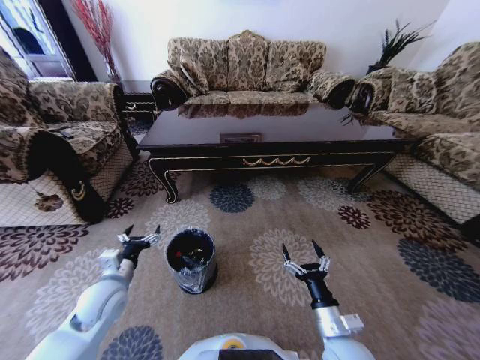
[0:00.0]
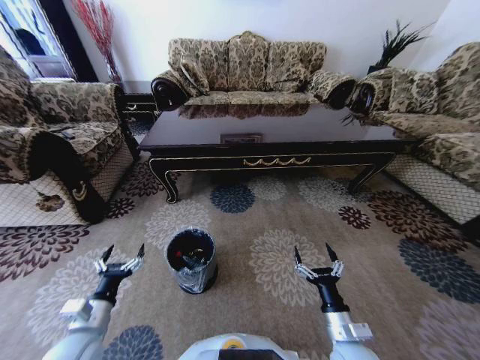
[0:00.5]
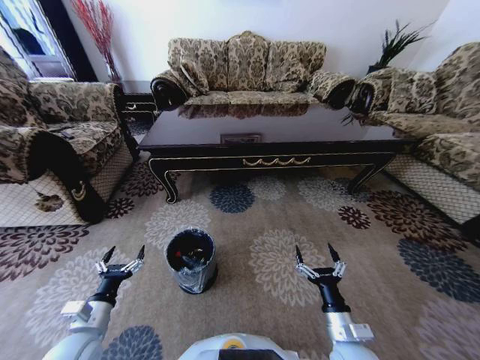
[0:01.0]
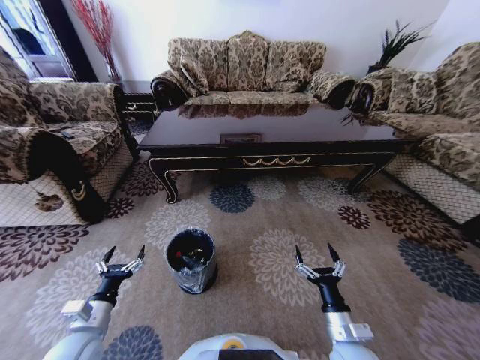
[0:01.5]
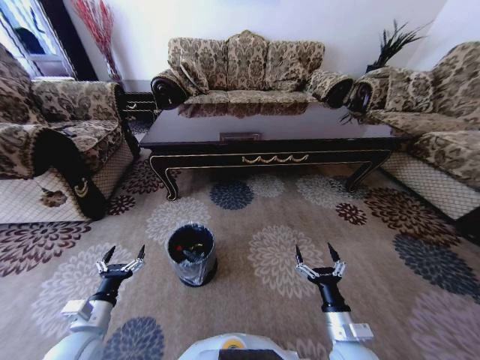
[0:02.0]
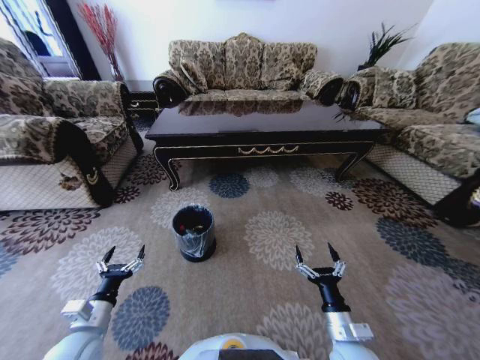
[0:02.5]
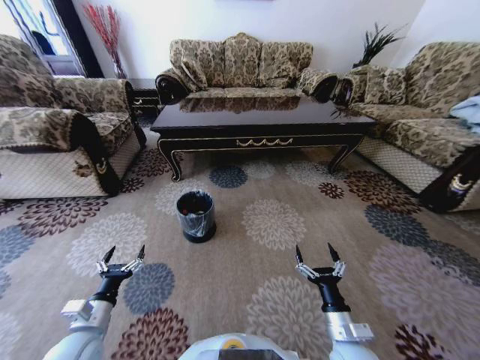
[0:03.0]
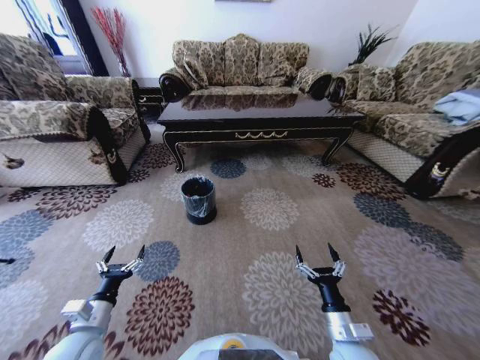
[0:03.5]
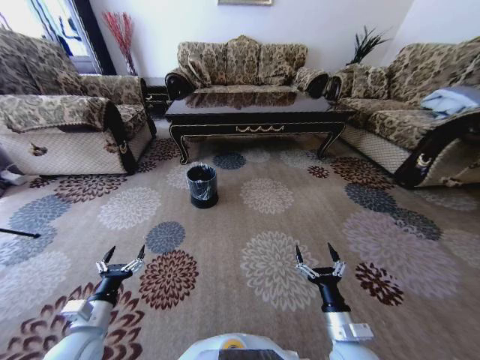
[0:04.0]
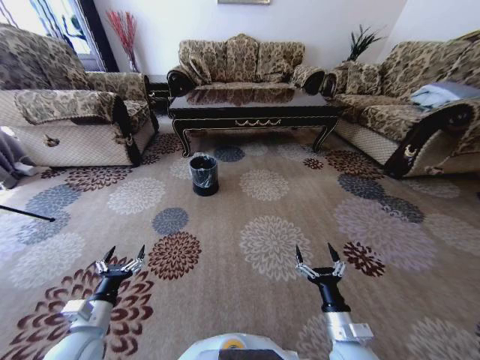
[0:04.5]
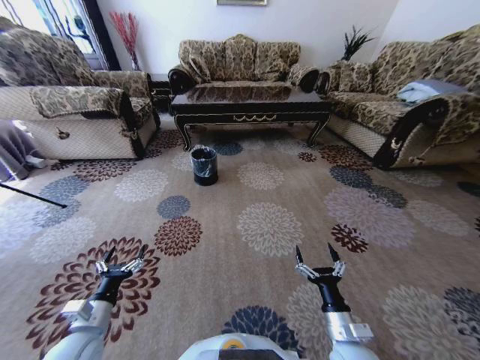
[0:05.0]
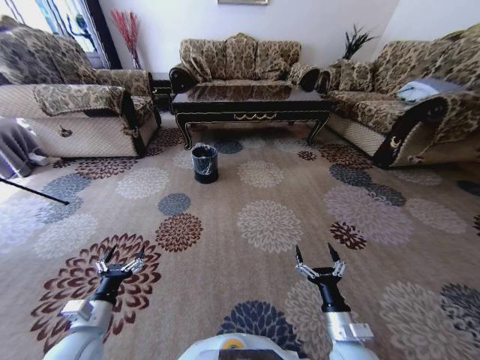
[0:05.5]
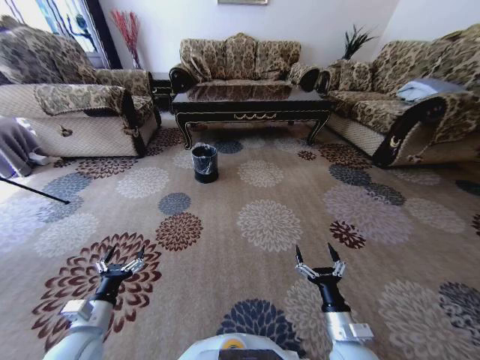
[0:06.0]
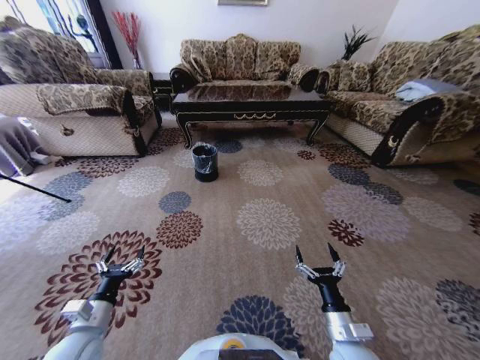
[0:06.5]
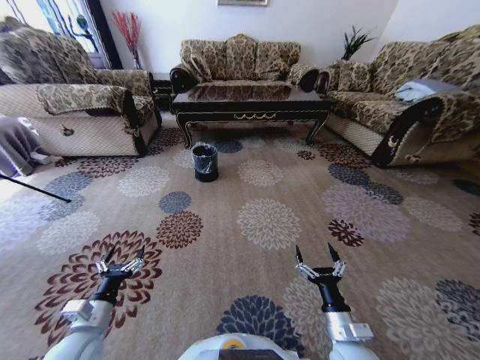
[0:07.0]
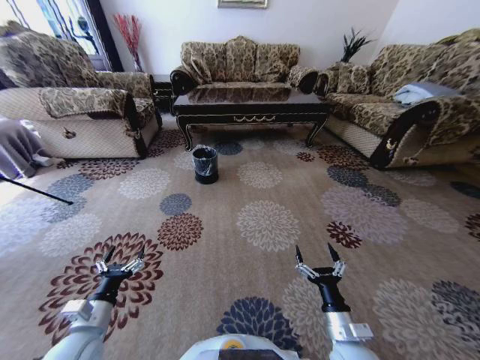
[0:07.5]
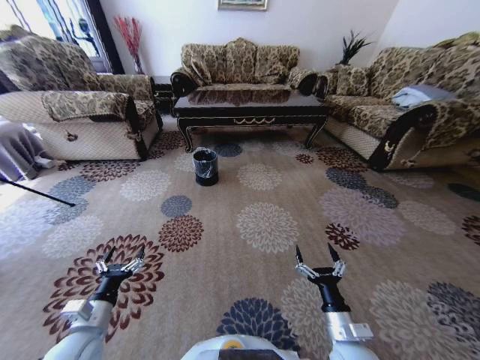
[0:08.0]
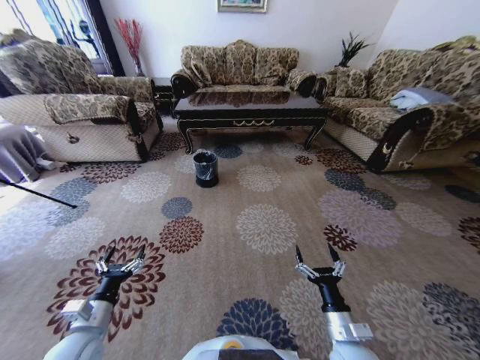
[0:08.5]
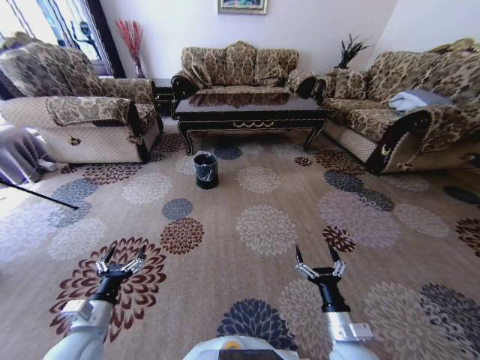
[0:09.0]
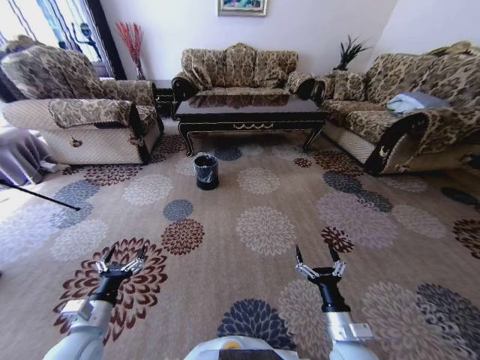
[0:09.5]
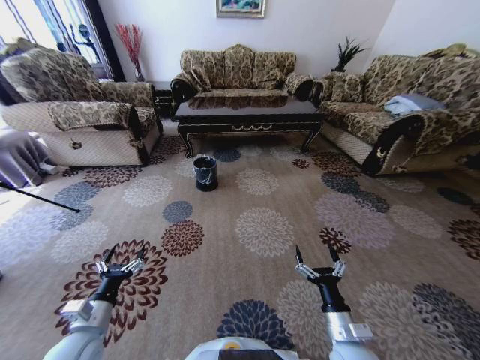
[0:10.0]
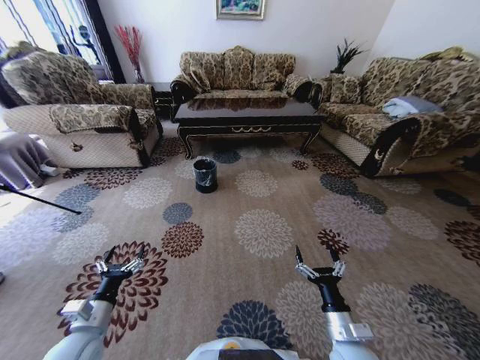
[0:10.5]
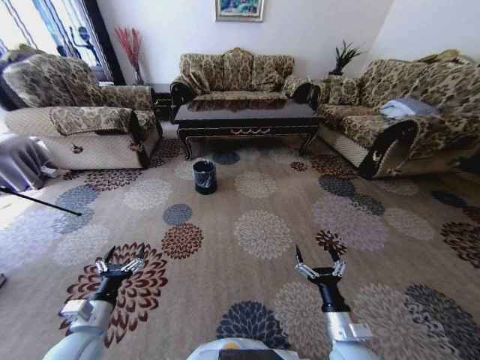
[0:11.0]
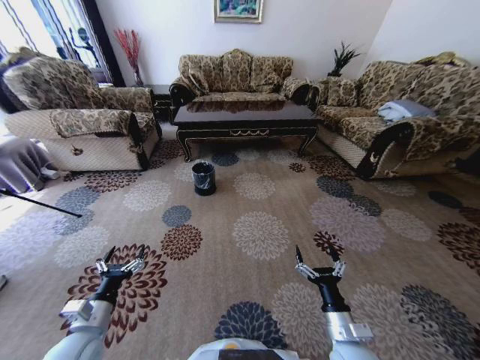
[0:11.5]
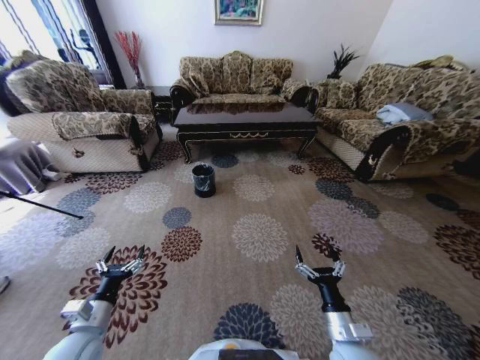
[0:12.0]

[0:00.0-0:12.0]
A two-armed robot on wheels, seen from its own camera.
Task of the whole recording: Move to the front of the table and pick up the trash from the floor, then place it into the trash bin.
0:00.0 to 0:02.0: The left gripper moves backward, about 10 cm.

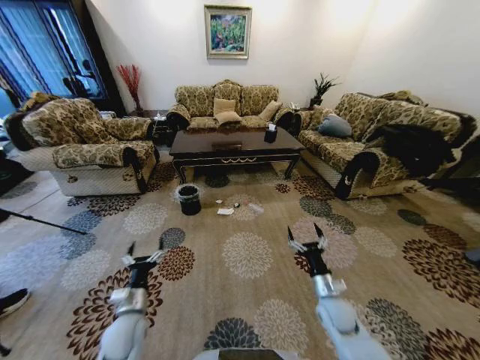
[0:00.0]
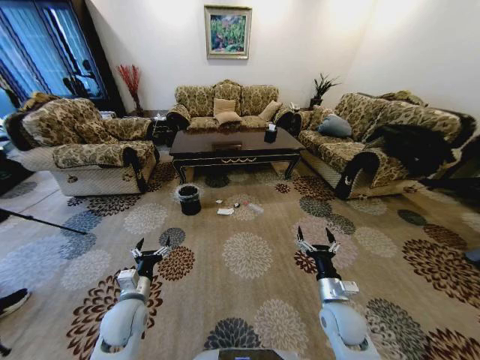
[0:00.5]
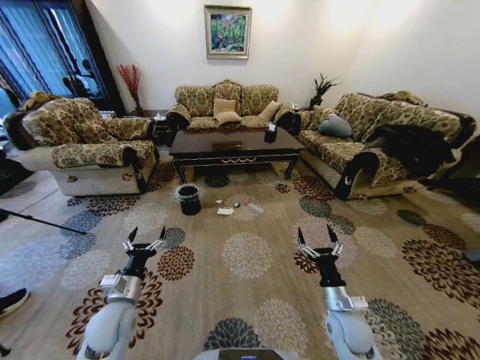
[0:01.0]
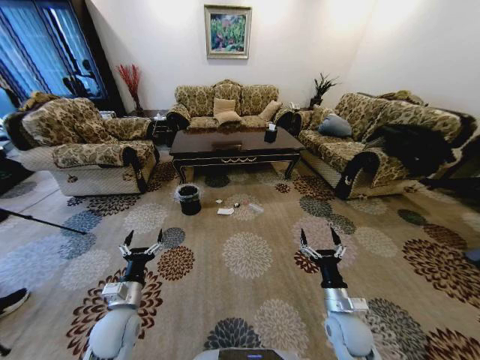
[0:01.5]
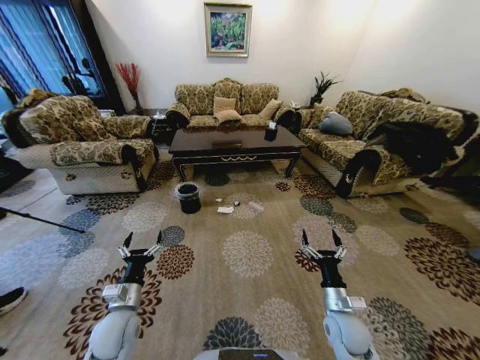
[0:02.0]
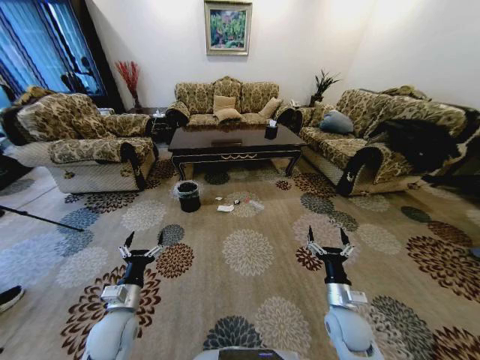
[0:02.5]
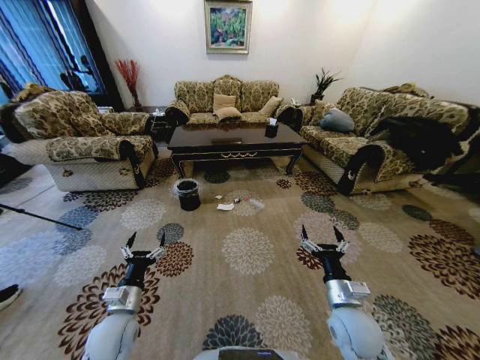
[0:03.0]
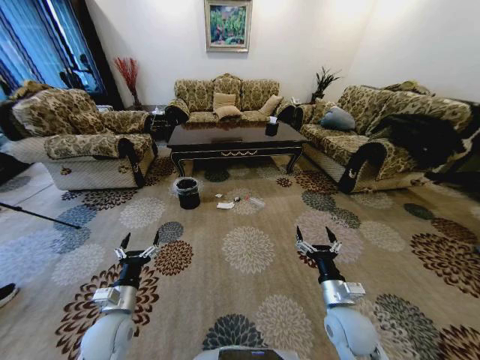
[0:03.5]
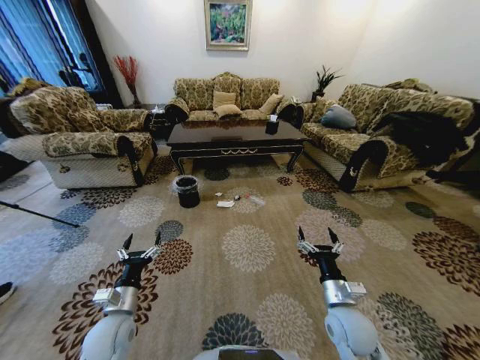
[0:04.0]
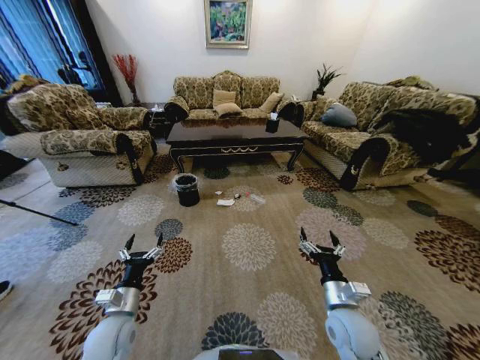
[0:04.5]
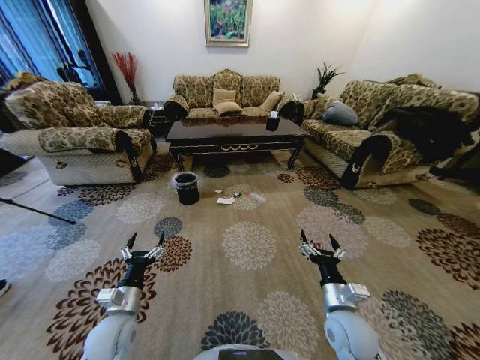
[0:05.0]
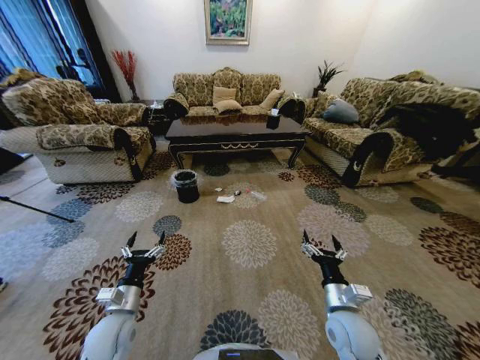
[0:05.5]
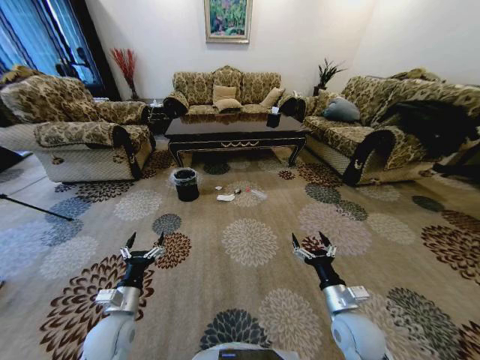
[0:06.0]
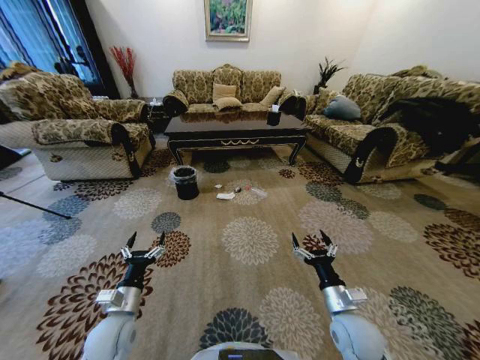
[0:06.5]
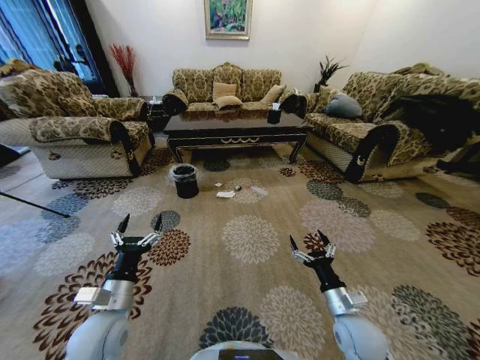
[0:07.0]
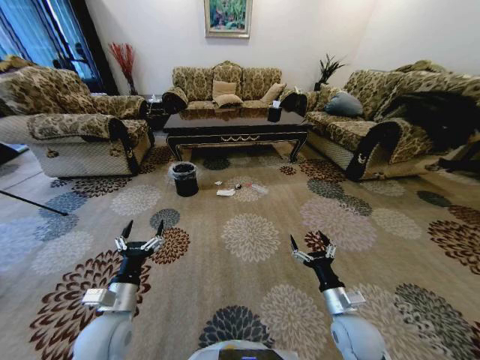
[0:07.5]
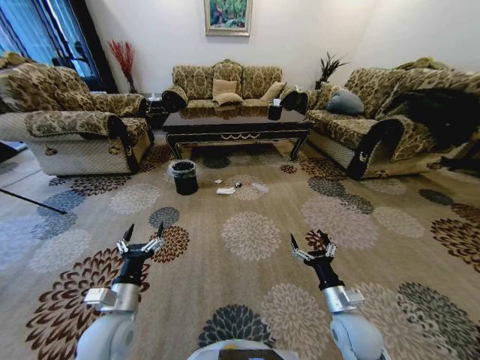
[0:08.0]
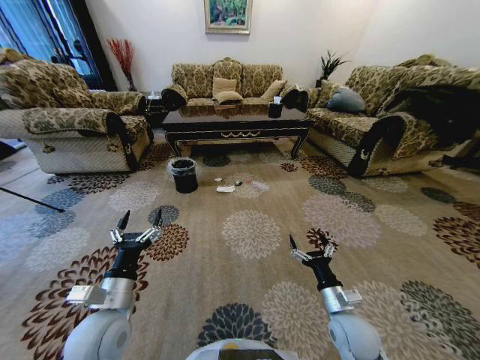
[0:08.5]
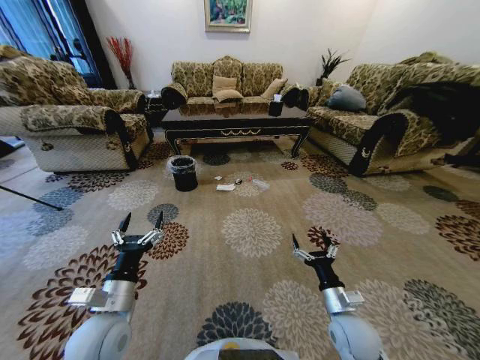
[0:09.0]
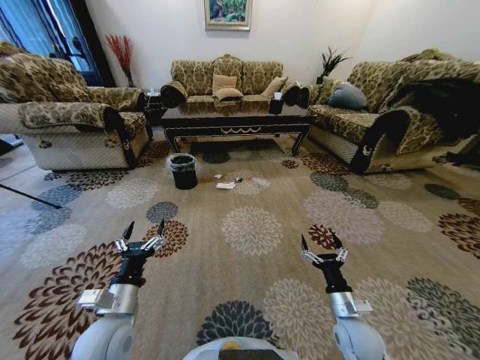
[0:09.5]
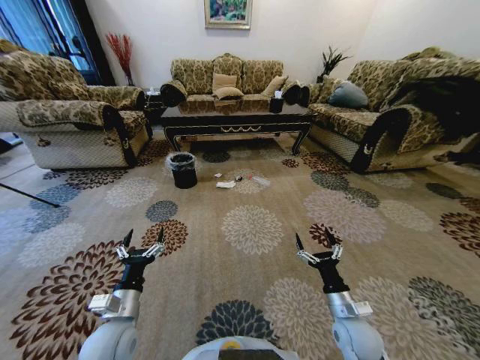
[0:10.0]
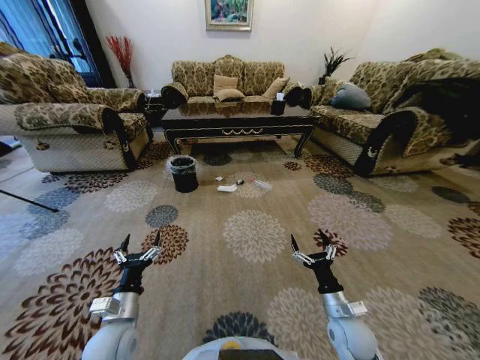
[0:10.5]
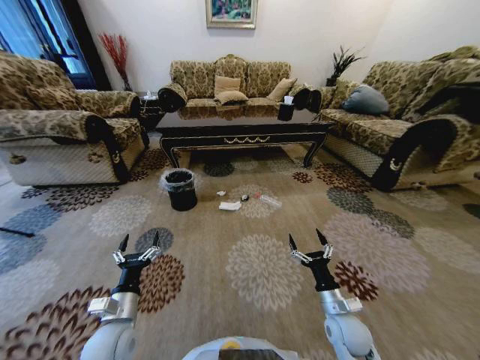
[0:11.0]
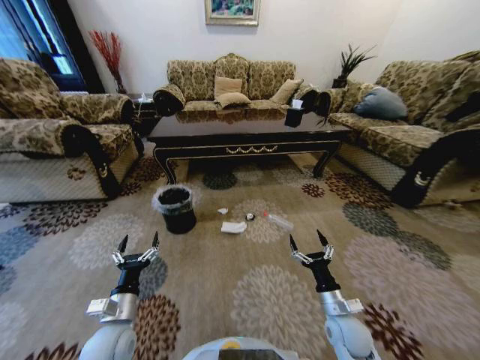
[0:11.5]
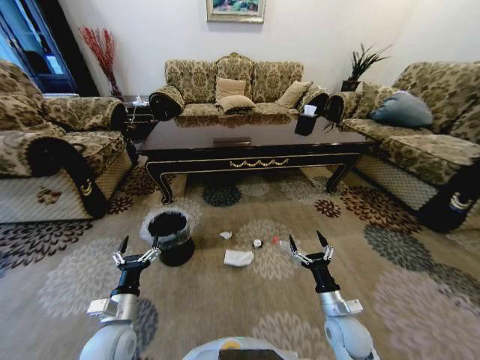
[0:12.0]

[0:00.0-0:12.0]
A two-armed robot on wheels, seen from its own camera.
Task of the whole recording: Move to the front of the table and pick up the trash from the floor, then place it into the trash bin.
0:02.0 to 0:04.0: The right gripper heads upward, covering roughly 5 cm.

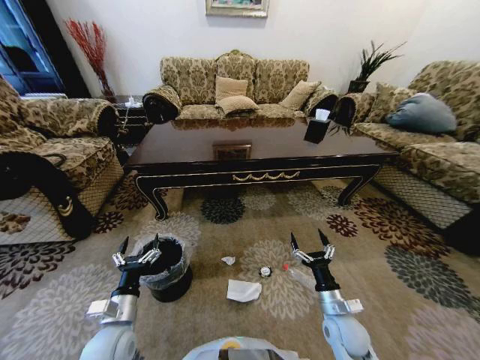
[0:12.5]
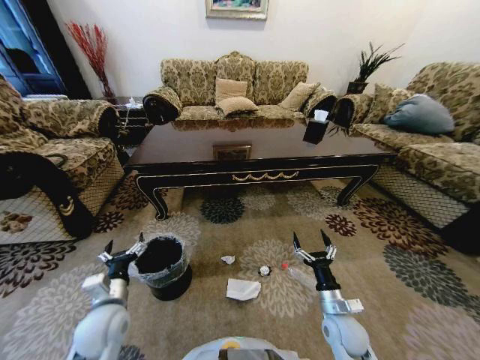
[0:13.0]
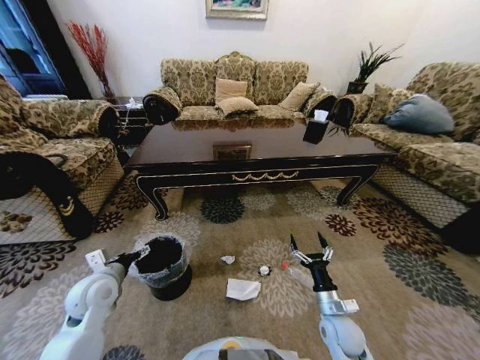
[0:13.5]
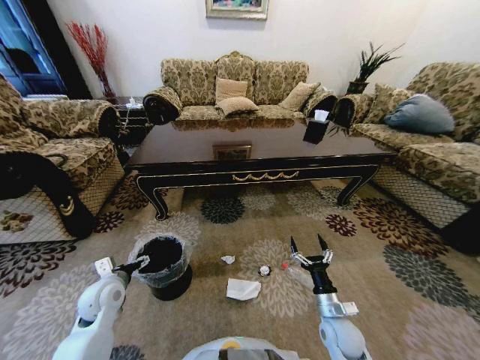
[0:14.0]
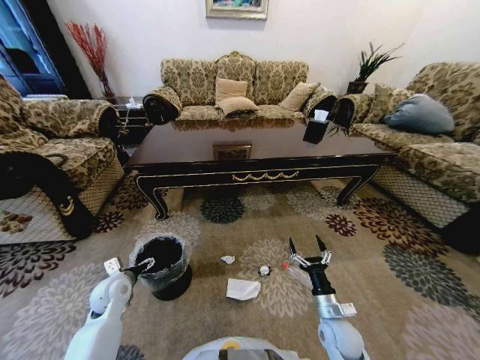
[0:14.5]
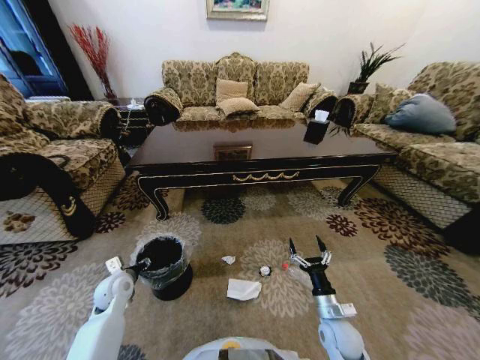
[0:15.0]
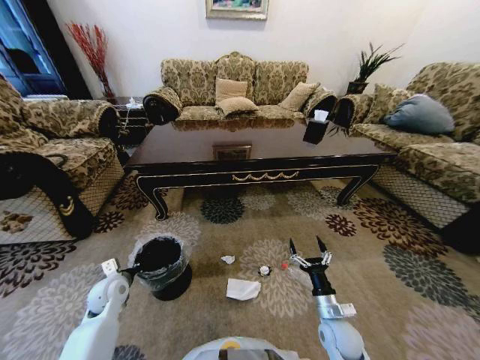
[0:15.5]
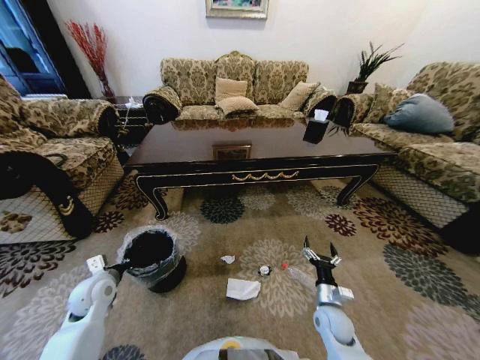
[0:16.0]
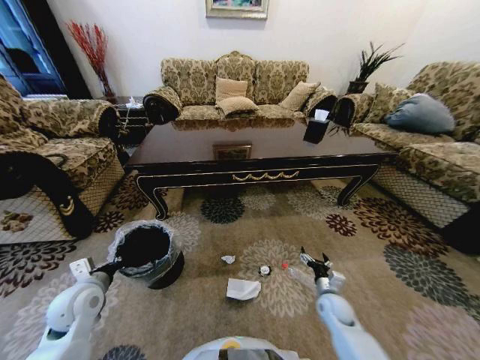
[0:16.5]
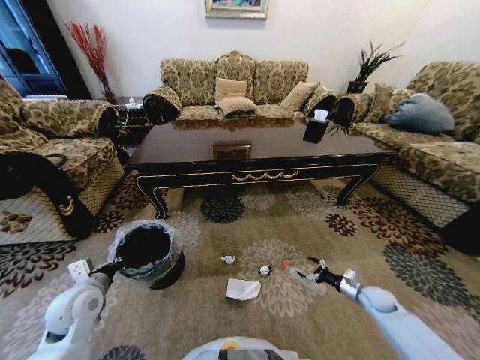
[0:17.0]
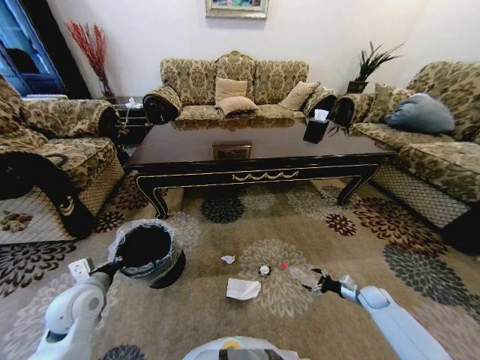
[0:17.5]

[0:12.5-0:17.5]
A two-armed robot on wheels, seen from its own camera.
Task of the whole recording: Move to the front of the table and pick up the trash from the floor, then place it into the trash bin.
0:12.5 to 0:15.0: The left gripper is displaced forward and to the left by roughly 15 cm.
0:15.0 to 0:17.5: The left gripper travels upward and backward by roughly 10 cm, and closes its fingers. Meanwhile the right gripper heads to the right and forward, covering approximately 25 cm.
